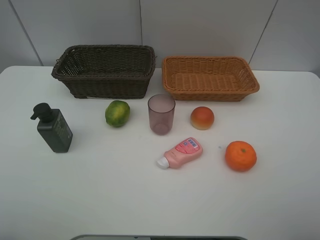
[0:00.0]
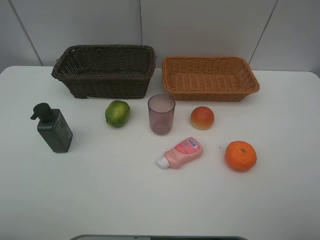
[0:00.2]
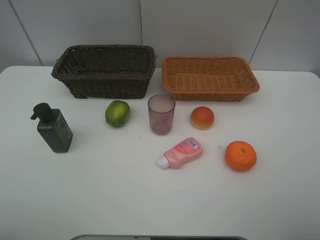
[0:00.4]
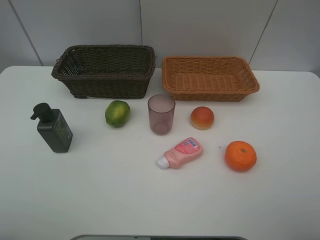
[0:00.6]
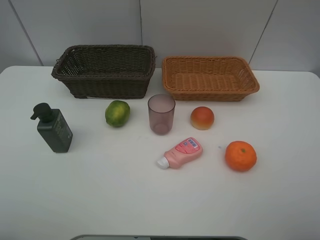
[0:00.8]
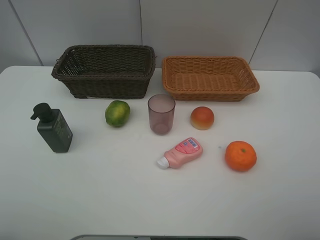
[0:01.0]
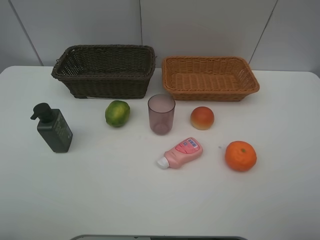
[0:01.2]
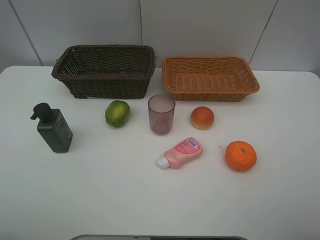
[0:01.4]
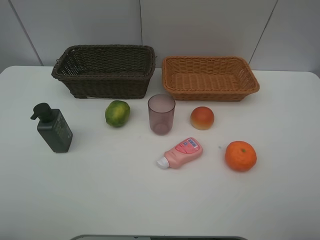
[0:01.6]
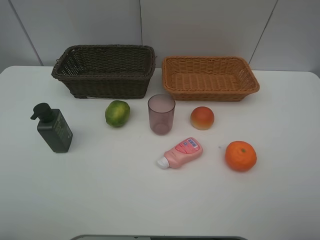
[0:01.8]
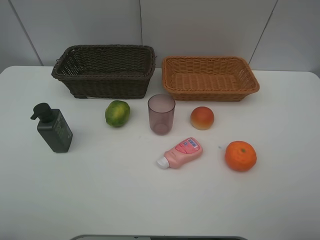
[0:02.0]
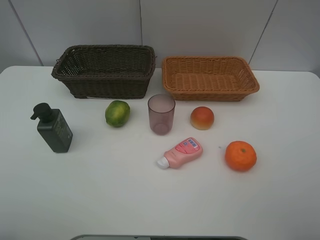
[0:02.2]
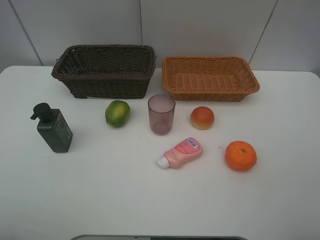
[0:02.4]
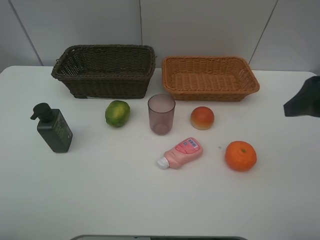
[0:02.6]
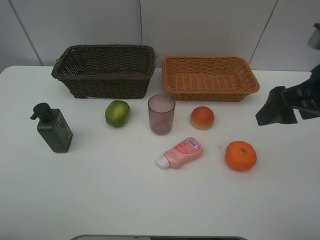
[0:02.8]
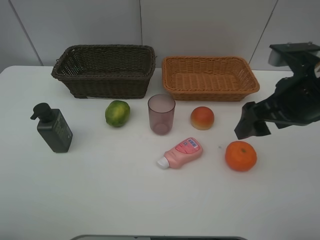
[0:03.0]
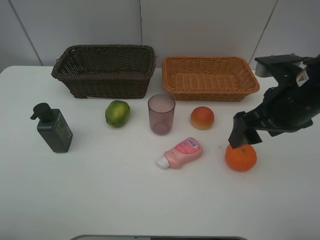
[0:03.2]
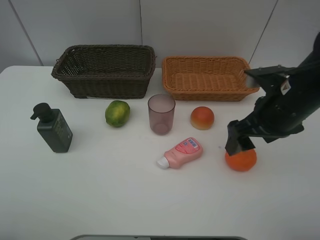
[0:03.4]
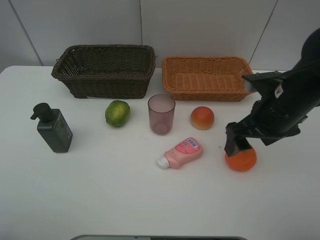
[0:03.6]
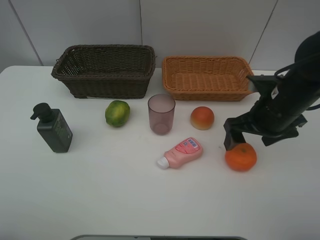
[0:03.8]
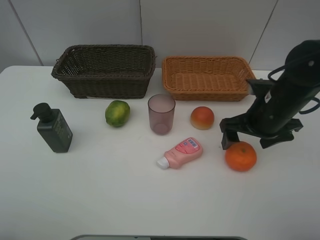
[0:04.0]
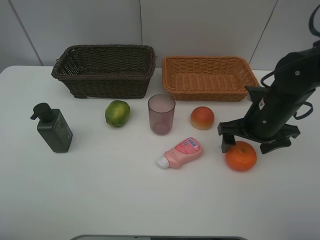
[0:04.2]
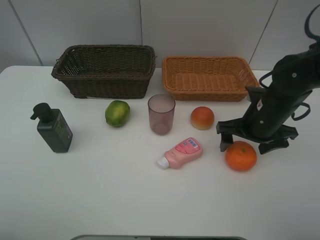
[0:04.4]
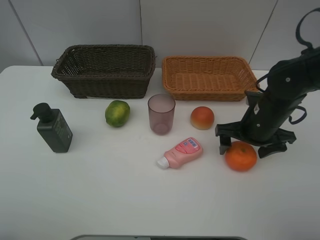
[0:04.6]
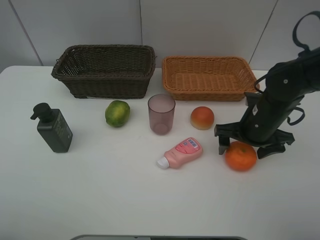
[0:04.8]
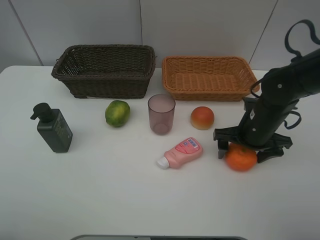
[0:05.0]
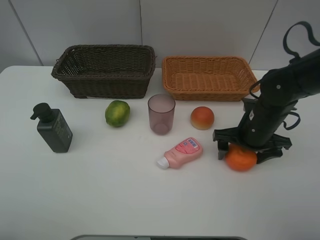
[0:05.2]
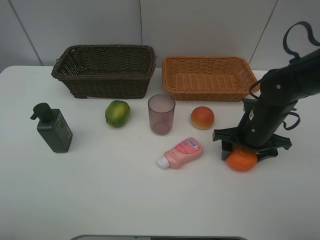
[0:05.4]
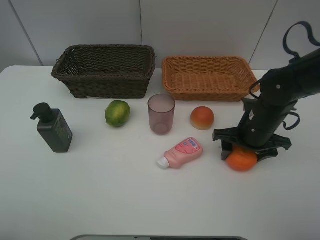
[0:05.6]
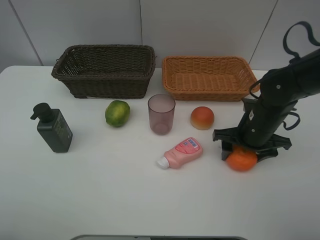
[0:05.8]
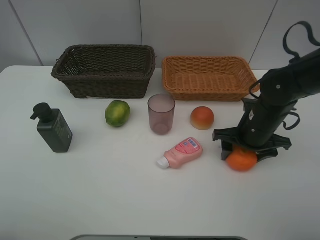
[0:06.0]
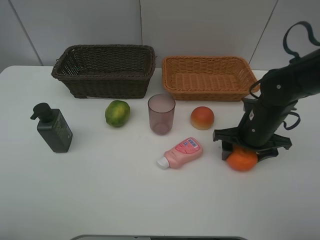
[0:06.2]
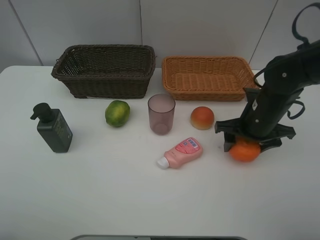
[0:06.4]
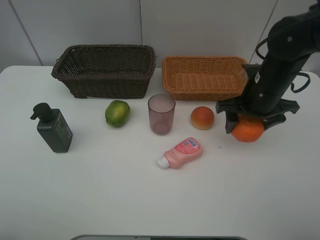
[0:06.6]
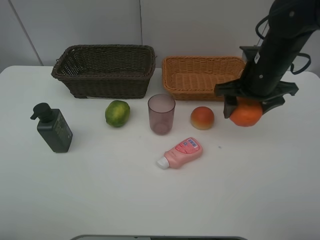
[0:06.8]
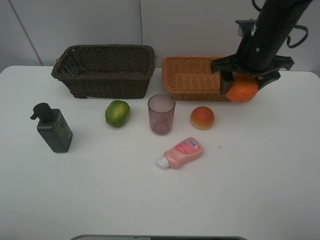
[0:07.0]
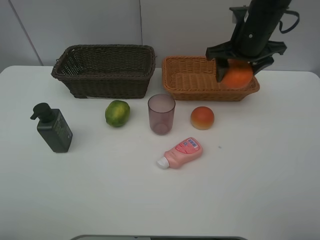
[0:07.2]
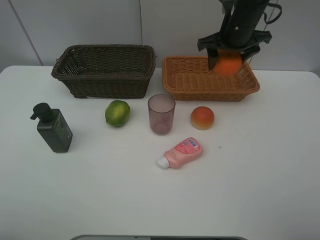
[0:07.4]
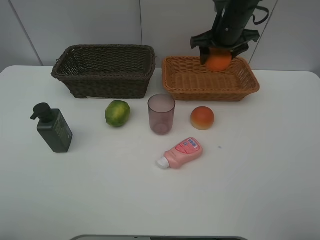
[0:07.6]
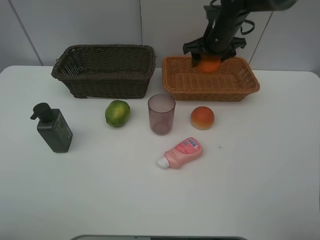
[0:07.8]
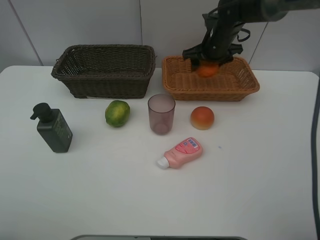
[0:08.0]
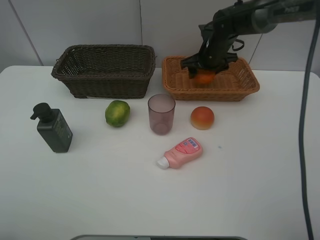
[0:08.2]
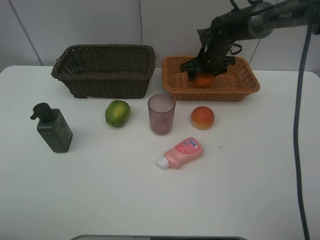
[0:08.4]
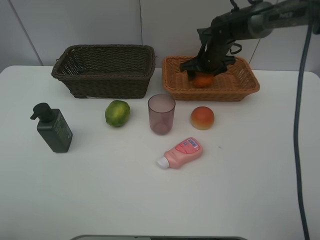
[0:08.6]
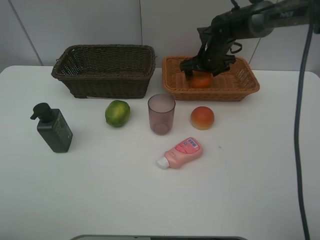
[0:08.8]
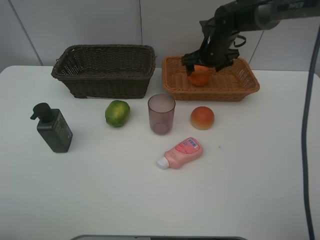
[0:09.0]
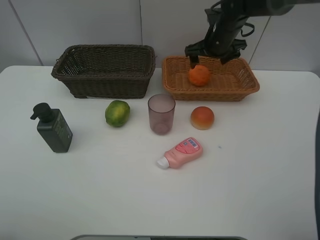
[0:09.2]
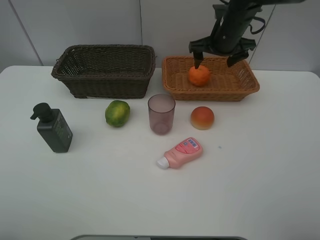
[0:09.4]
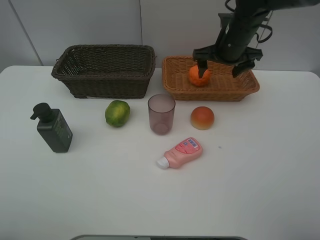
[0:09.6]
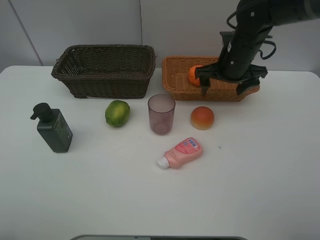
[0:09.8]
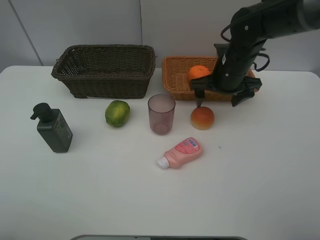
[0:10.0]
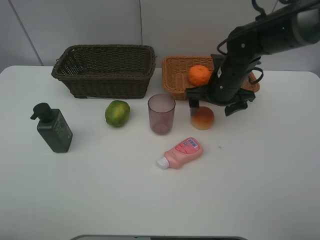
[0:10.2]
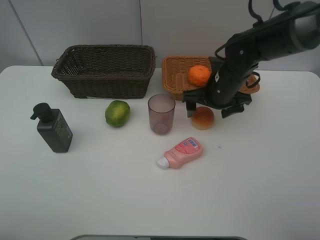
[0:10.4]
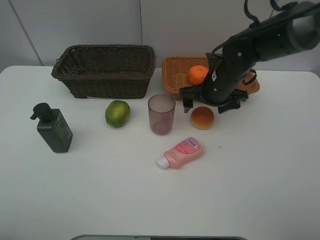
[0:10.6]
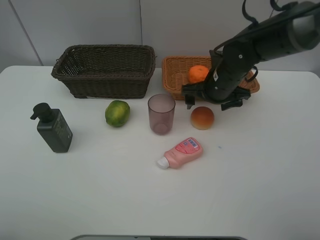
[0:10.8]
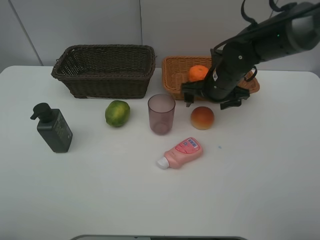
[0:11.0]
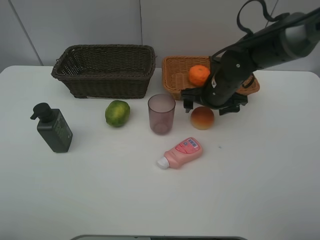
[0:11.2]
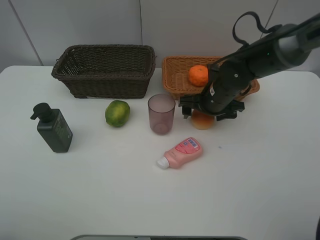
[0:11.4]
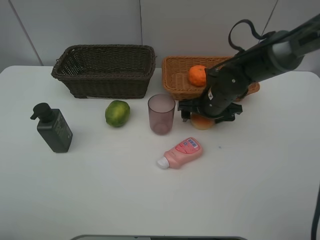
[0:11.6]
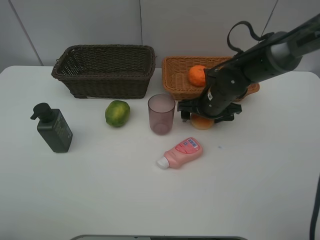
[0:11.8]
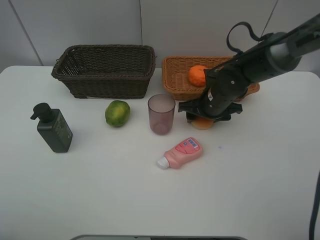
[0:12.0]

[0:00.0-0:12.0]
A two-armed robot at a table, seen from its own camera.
Task of the whole recording: place multiple objects separately in different baskets.
0:00.0 to 0:01.6: Neither gripper changes place.
0:01.6 to 0:03.0: The right gripper moves forward and to the left, approximately 20 cm.
0:03.0 to 0:04.4: The right gripper shifts some 10 cm downward and forward.
0:04.4 to 0:06.0: The right gripper closes up.
0:06.0 to 0:07.6: The right gripper goes about 20 cm forward and upward.
0:07.6 to 0:09.0: The right gripper goes some 5 cm downward, and opens.
0:09.0 to 0:10.4: The right gripper heads backward, covering about 15 cm.
0:10.4 to 0:12.0: The right gripper closes its fingers.

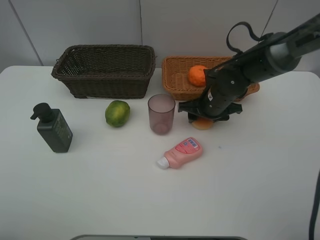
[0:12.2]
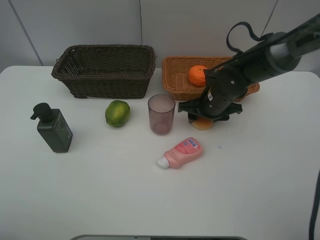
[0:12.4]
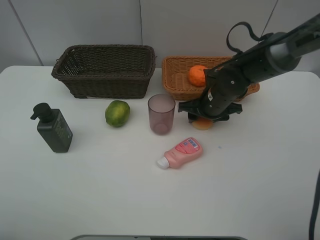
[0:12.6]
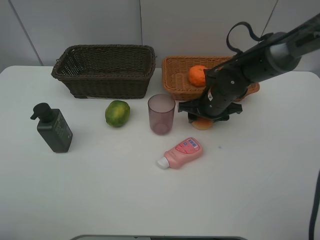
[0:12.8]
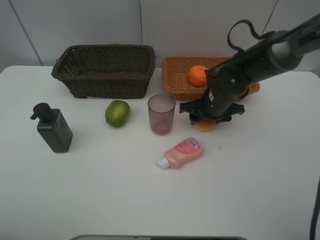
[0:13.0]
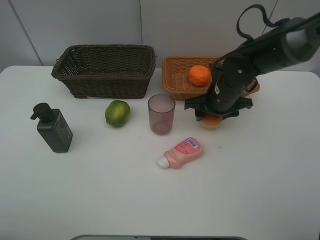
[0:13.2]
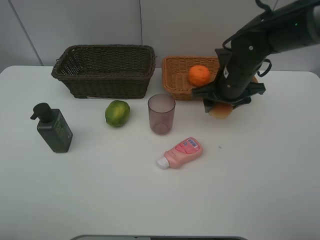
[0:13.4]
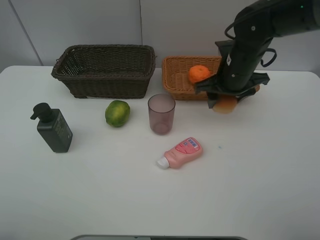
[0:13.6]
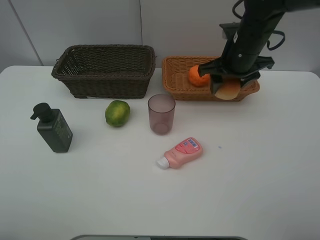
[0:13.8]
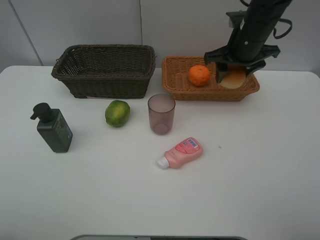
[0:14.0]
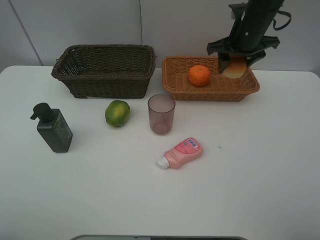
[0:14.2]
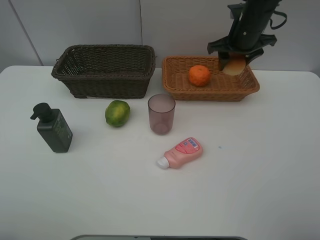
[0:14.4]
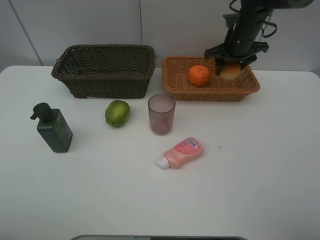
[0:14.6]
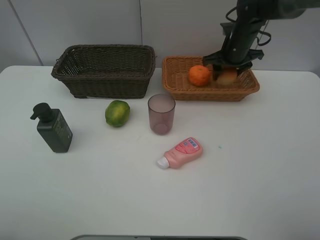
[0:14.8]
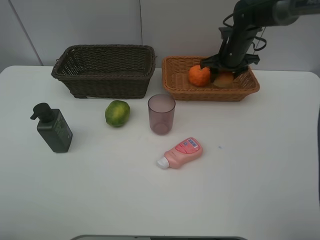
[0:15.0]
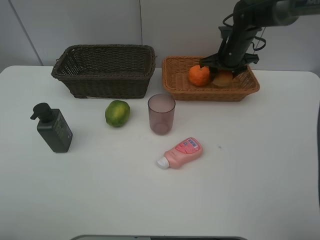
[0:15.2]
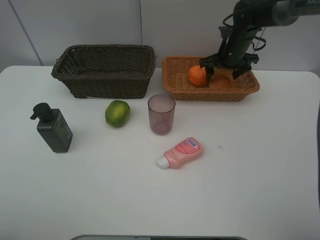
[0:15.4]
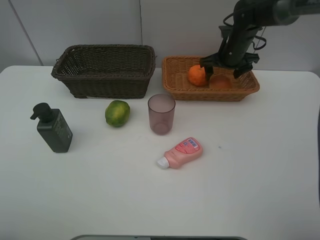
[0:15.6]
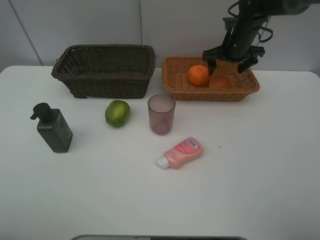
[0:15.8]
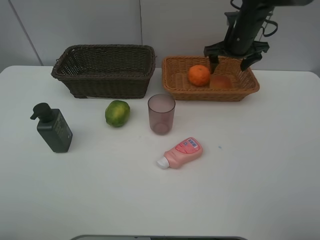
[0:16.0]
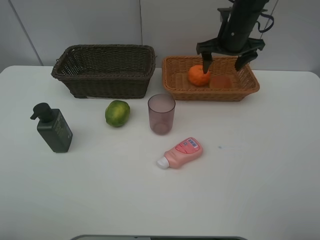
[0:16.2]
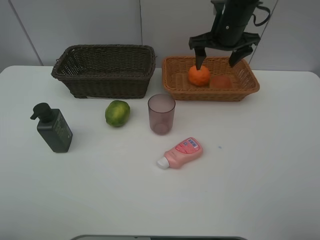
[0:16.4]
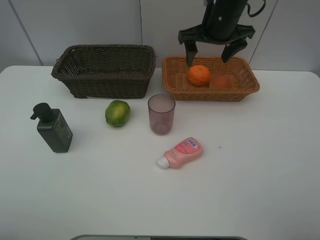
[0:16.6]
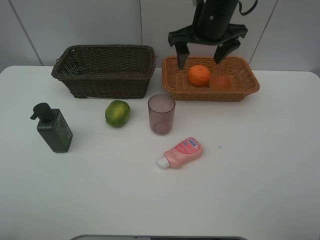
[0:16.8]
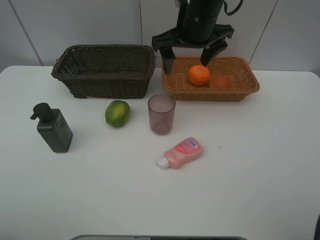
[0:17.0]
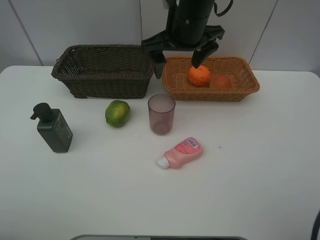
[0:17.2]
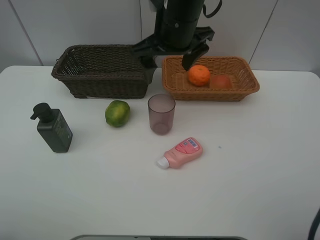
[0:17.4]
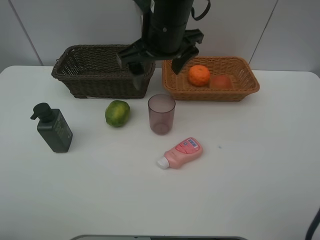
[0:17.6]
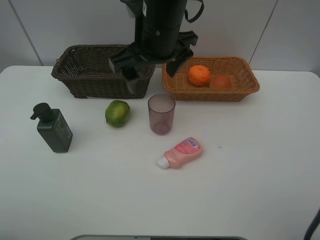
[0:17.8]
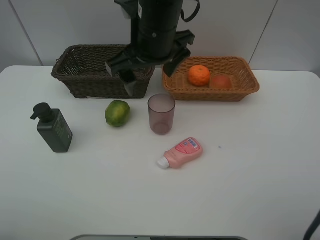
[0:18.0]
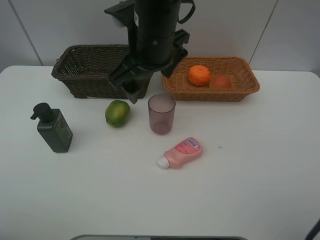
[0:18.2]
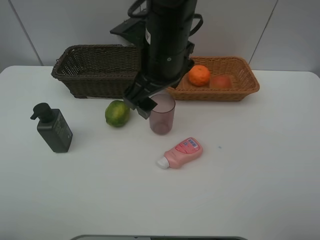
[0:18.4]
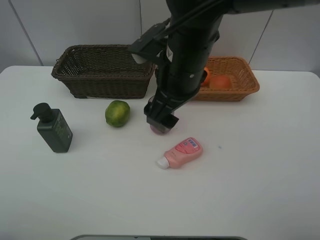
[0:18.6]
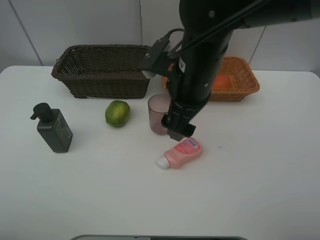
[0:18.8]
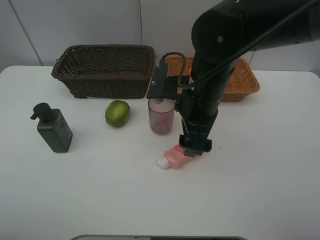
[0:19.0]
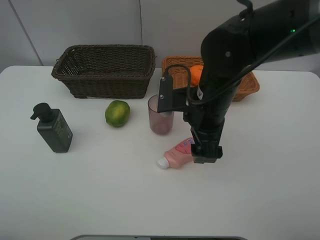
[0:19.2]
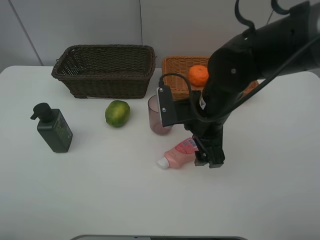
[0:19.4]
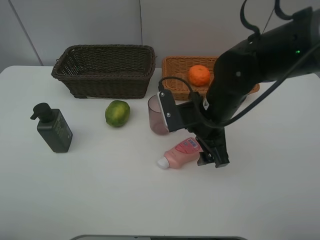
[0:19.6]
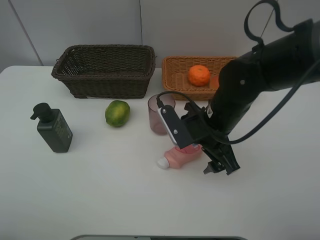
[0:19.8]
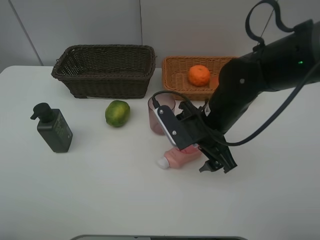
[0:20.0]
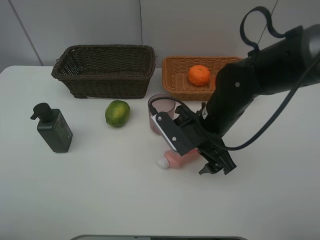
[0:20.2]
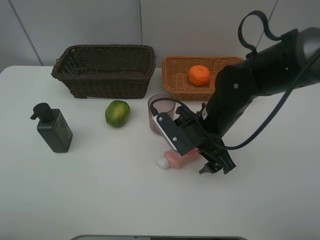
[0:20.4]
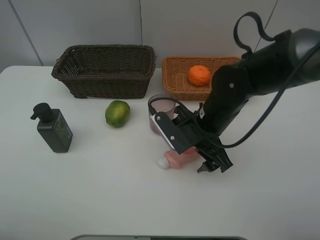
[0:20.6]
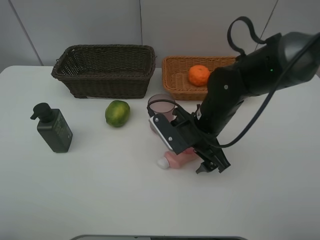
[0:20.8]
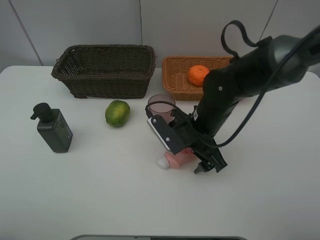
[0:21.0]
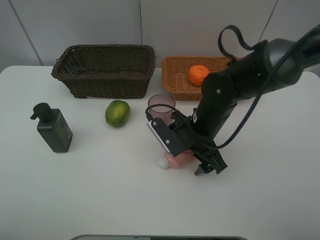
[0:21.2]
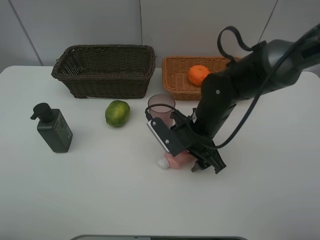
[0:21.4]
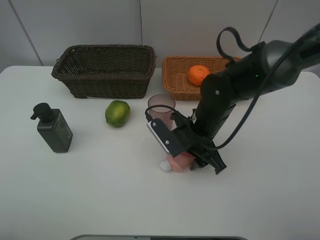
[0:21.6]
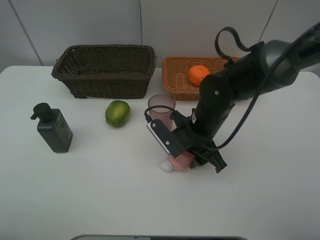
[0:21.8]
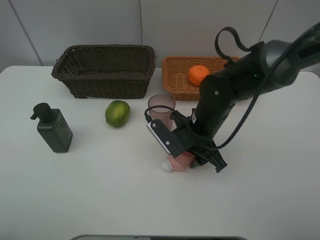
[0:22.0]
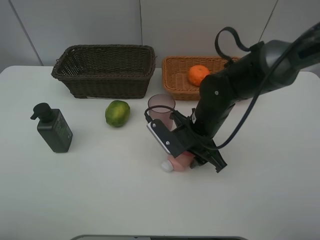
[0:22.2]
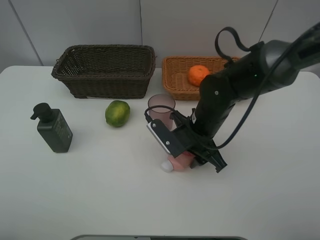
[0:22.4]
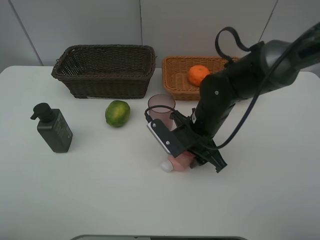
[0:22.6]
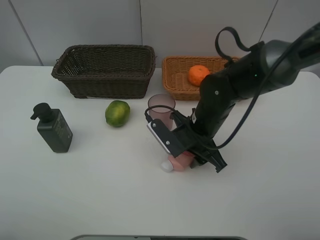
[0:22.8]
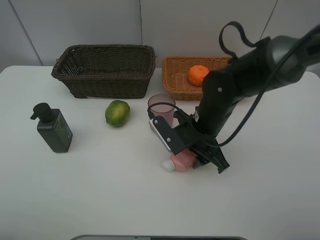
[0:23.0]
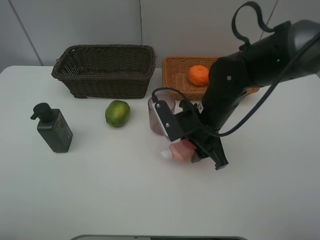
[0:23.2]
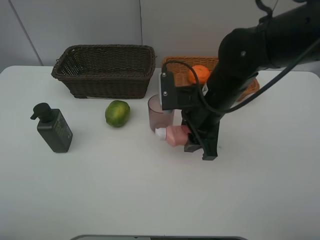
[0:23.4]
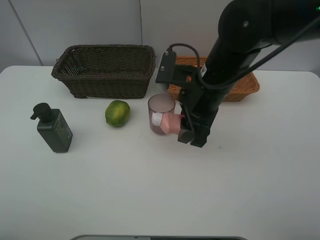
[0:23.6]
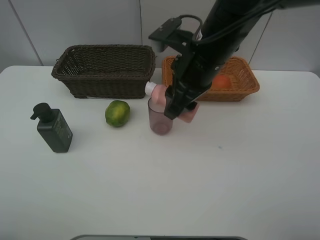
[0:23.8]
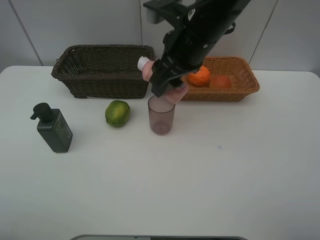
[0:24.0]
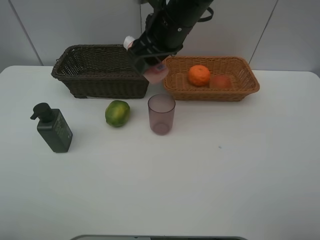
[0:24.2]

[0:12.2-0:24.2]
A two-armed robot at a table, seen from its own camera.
Task of the whole recording: place multiple objects separately in different baskets.
0:12.2 to 0:13.8: The right gripper goes about 15 cm upward.
0:13.8 to 0:15.2: The right gripper shifts about 15 cm forward and downward.
0:15.2 to 0:16.6: The right gripper goes about 15 cm upward, backward and to the left, and opens up.
0:16.6 to 0:18.2: The right gripper shifts approximately 15 cm to the left and backward.
0:18.2 to 0:19.8: The right gripper heads downward and to the right, covering approximately 15 cm.
0:19.8 to 0:21.2: The grippers make only small movements.
0:21.2 to 0:22.6: The right gripper closes.
0:22.6 to 0:24.2: The right gripper travels upward and forward by some 20 cm.
